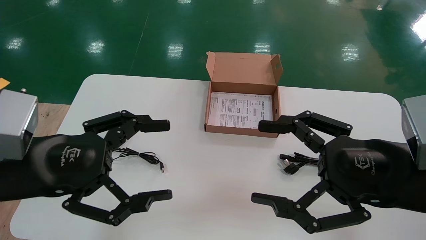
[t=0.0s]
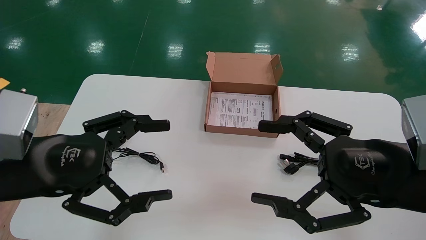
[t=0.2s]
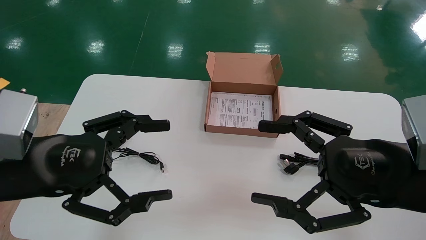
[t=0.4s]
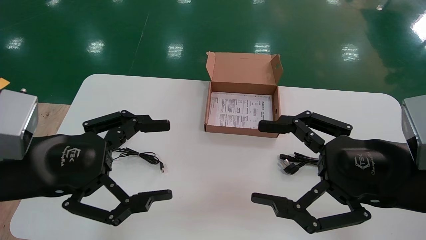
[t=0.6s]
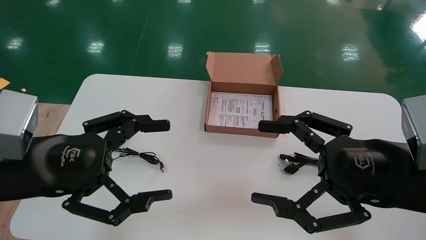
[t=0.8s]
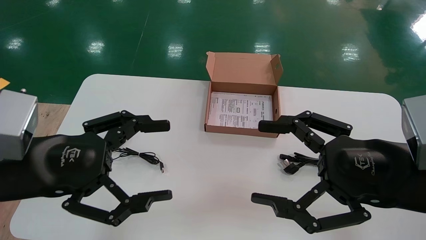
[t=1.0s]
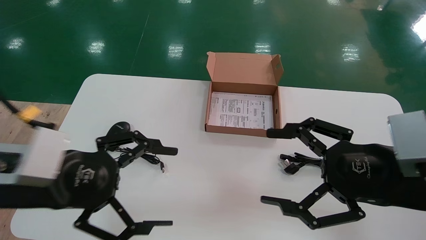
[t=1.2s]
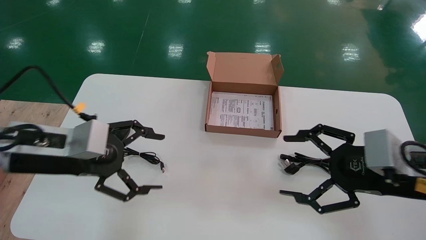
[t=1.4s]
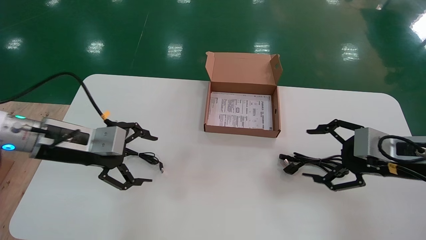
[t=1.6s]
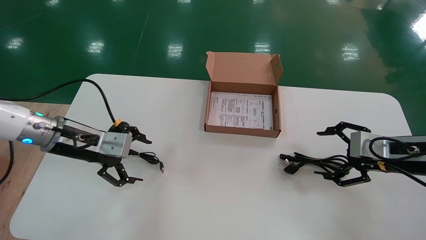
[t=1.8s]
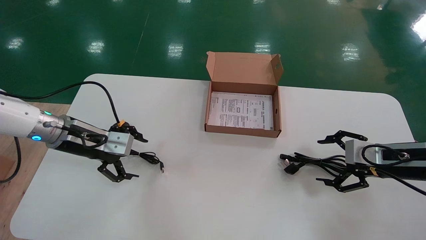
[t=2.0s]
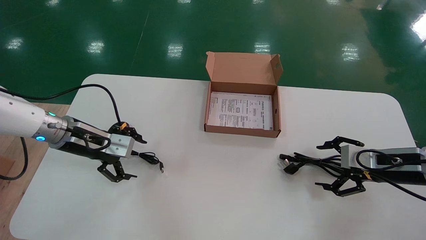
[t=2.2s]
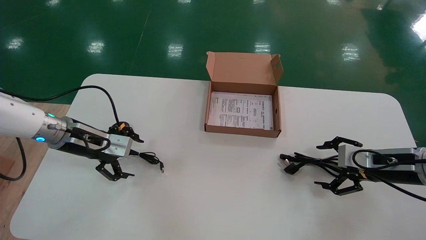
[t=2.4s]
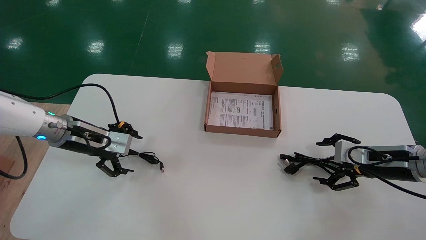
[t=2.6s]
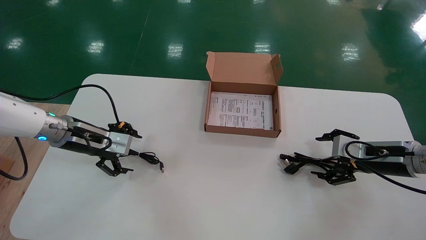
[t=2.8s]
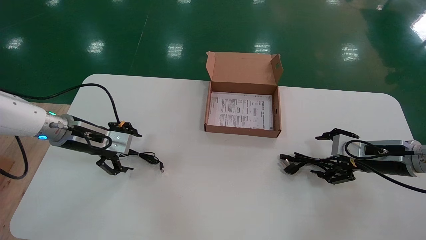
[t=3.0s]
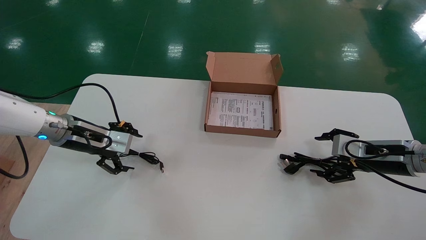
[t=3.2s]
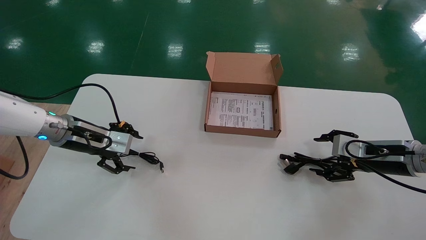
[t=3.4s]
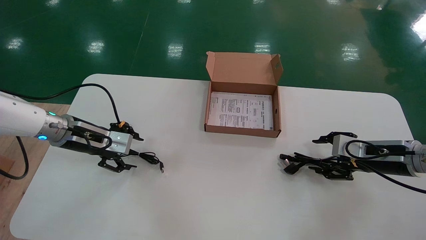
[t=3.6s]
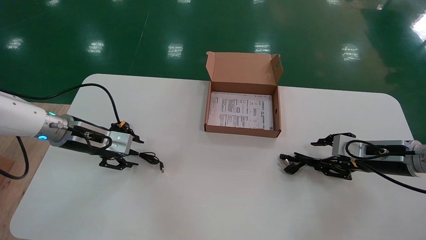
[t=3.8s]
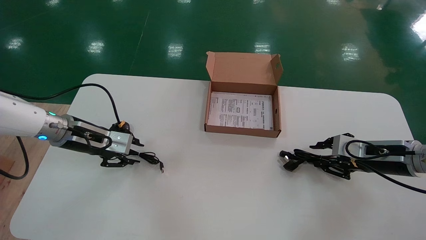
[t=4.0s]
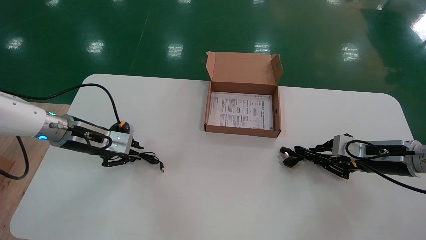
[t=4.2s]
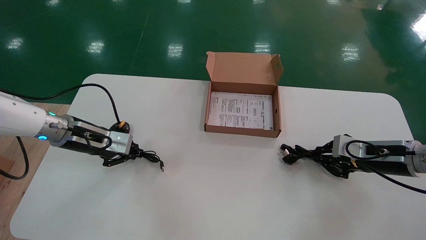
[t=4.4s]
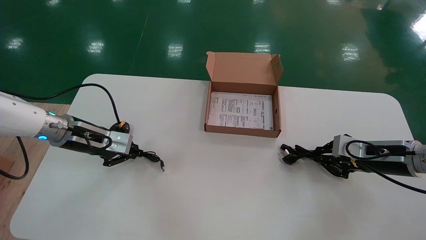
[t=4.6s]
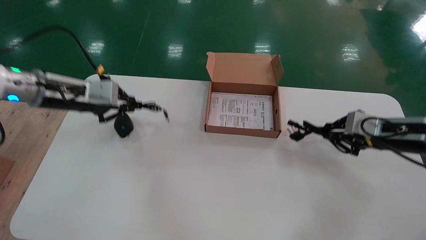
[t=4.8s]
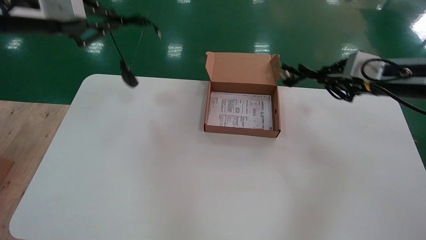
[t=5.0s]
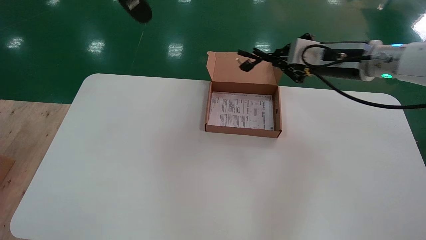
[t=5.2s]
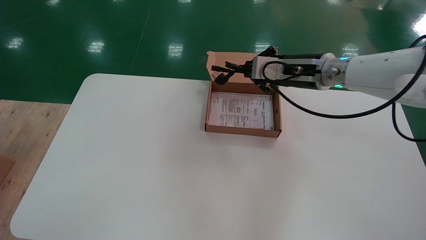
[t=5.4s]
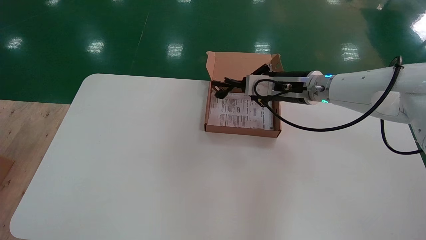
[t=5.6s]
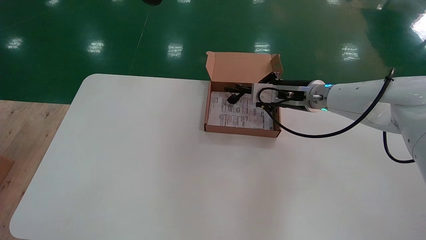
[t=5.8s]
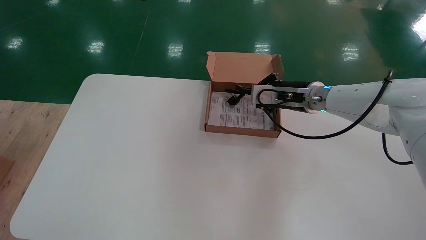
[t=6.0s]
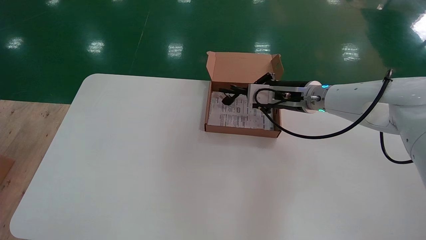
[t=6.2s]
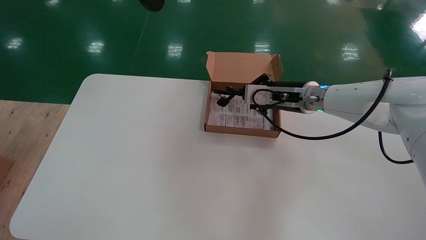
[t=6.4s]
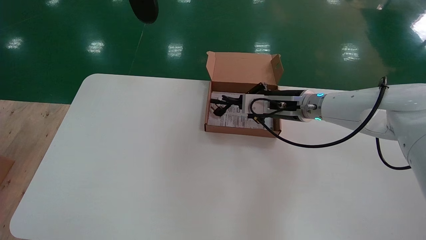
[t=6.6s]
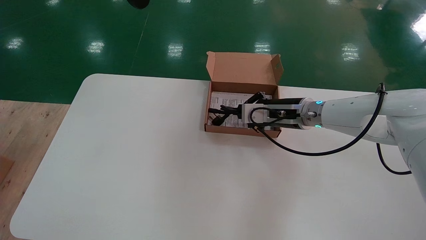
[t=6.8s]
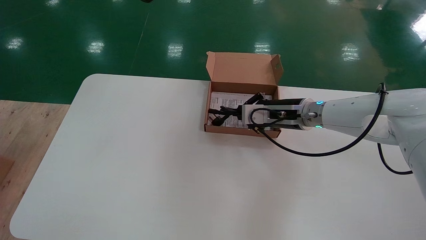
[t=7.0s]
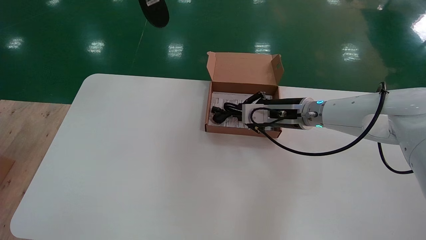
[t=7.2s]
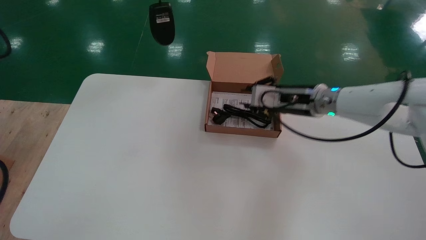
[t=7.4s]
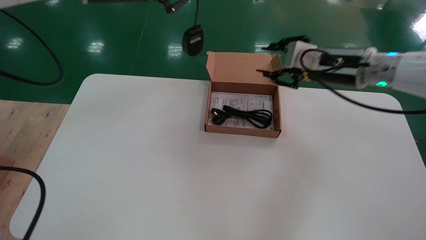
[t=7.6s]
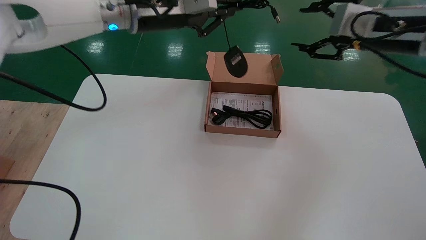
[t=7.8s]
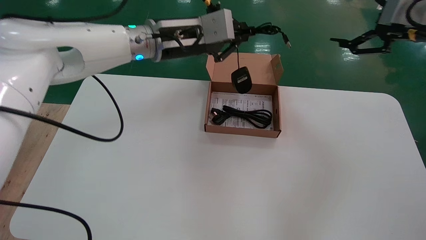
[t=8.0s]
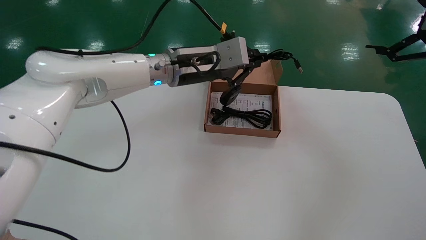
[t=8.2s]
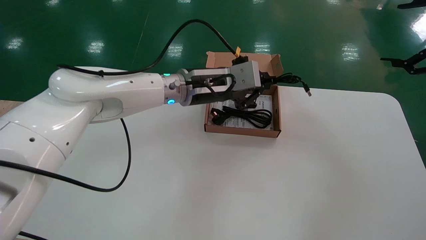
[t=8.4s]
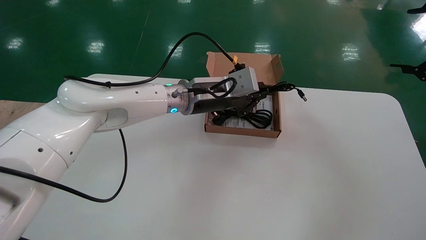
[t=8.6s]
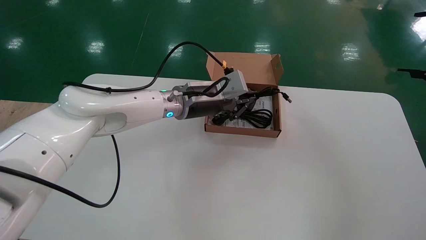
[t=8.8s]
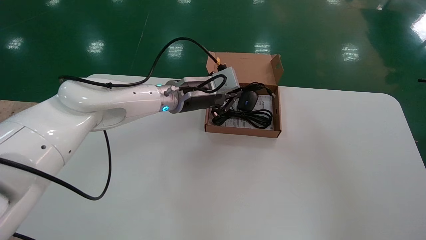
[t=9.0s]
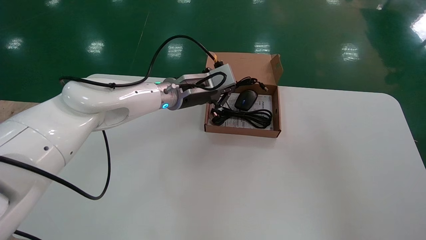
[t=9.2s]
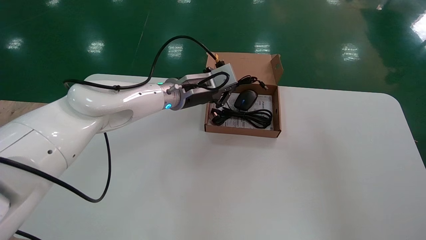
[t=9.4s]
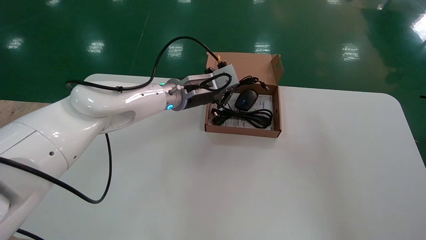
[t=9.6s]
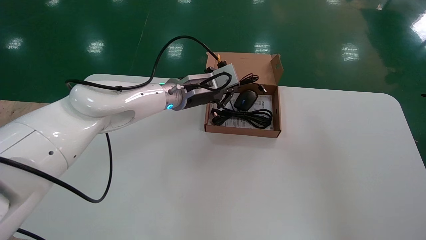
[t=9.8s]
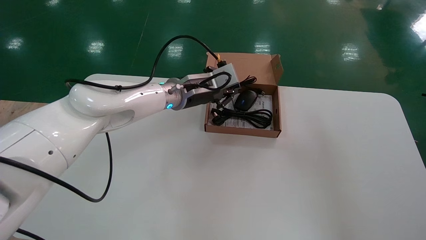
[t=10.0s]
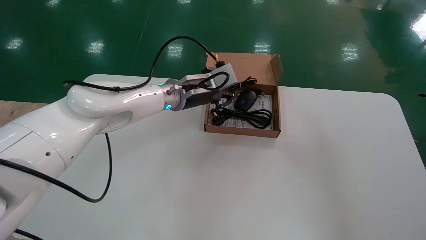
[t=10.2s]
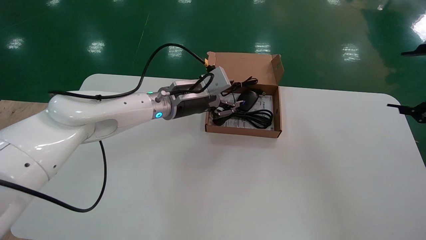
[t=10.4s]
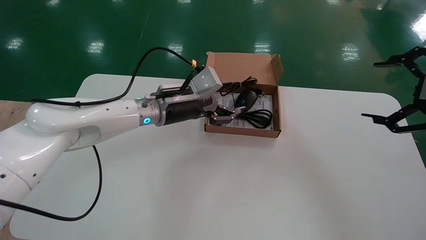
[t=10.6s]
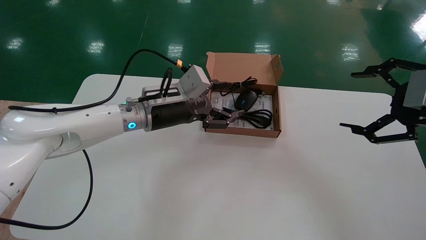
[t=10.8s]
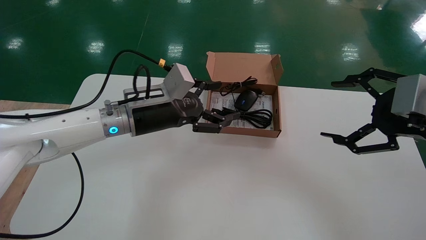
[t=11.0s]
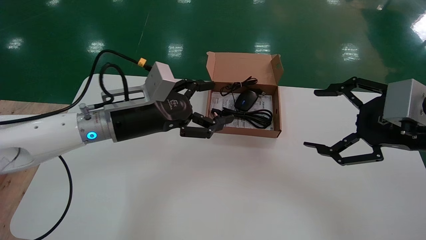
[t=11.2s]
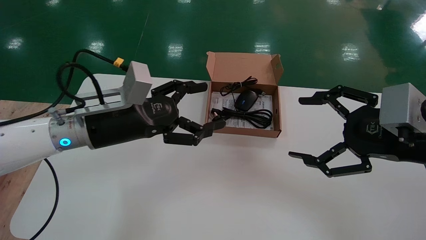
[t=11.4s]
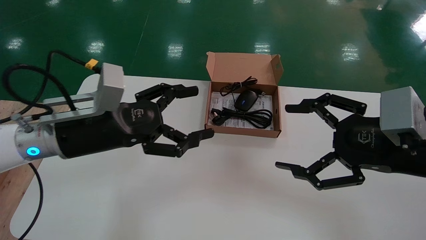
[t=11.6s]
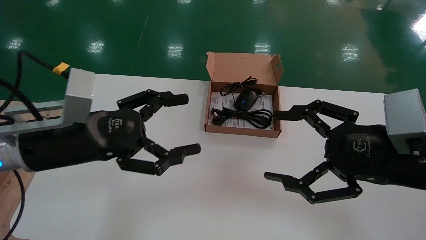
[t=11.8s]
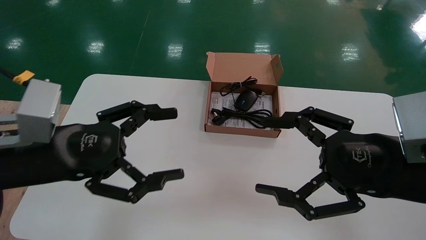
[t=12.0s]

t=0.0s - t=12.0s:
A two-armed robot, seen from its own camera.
Step, t=1.6s - t=4.8s: Simultaneously pick up the mouse and power cord from the accessory packaging area.
Step, t=5.0s - t=10.4s: Place the mouse and power cord into the box.
t=0.0s - t=1.6s: The right gripper shifts approximately 15 cm forward and to the right. The left gripper heads forward, covering some 15 cm.
t=1.6s - t=3.0s: The right gripper travels forward and downward by about 10 cm; the left gripper travels forward by some 10 cm.
t=3.0s - t=4.4s: The right gripper closes; the left gripper closes up.
t=4.4s - t=6.0s: The left gripper moves upward, some 35 cm. The right gripper goes about 25 cm to the left, forward and upward.
t=6.0s - t=7.6s: The left gripper moves to the right, downward and forward, roughly 15 cm. The right gripper heads upward, to the right and backward, covering about 10 cm.
t=7.6s - t=9.0s: The left gripper goes approximately 25 cm downward, to the right and forward, while the right gripper shifts approximately 25 cm to the right and backward, and opens up.
t=9.0s - t=10.4s: The right gripper ends up roughly 5 cm from where it was. Meanwhile the left gripper opens its fingers.
t=10.4s - t=12.0s: The left gripper goes approximately 30 cm backward and to the left, and opens its fingers, while the right gripper goes approximately 20 cm to the left and downward.

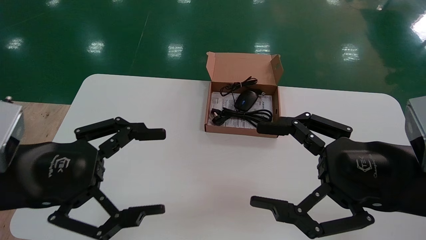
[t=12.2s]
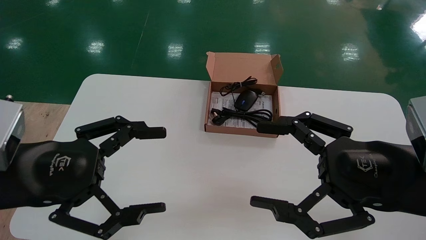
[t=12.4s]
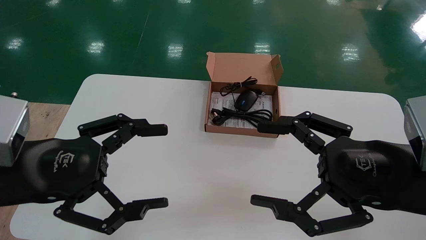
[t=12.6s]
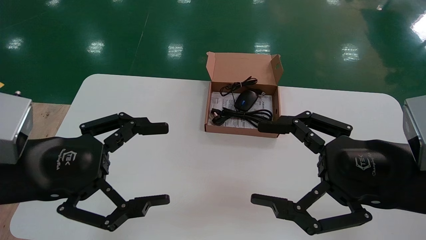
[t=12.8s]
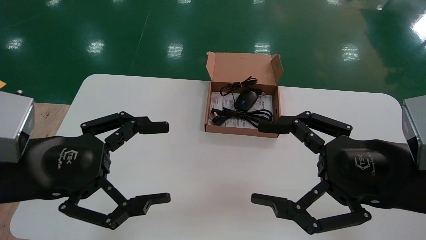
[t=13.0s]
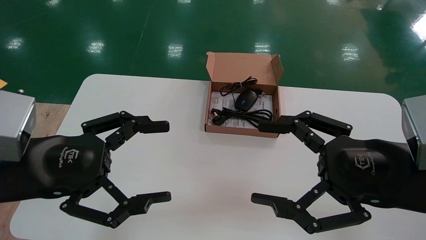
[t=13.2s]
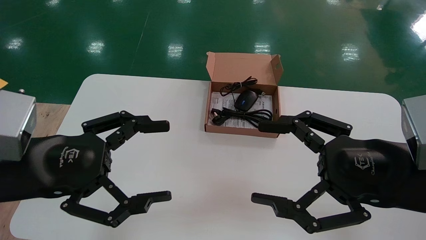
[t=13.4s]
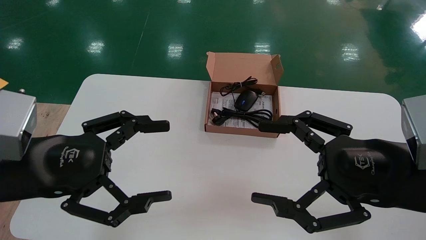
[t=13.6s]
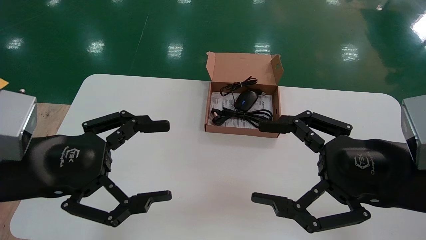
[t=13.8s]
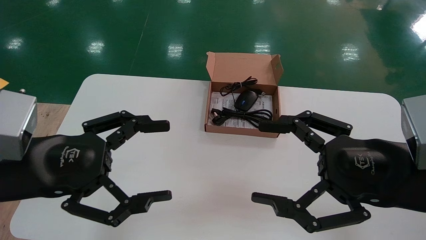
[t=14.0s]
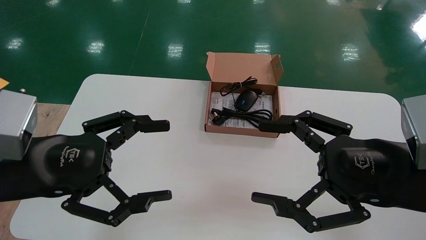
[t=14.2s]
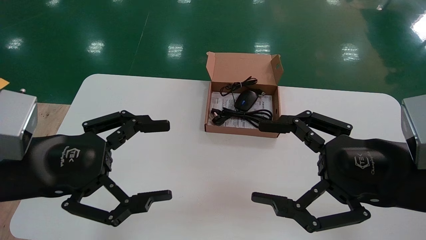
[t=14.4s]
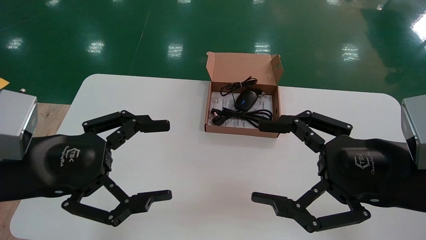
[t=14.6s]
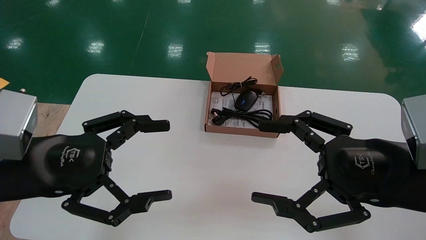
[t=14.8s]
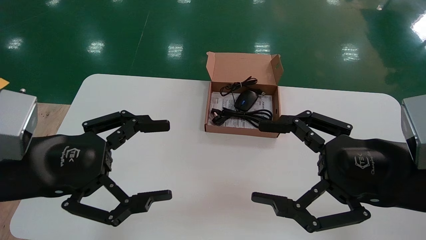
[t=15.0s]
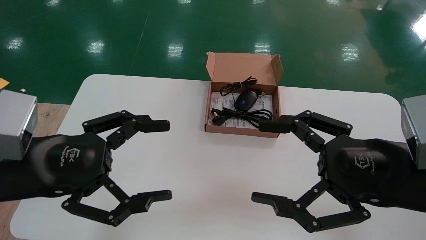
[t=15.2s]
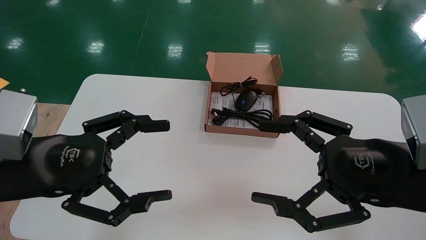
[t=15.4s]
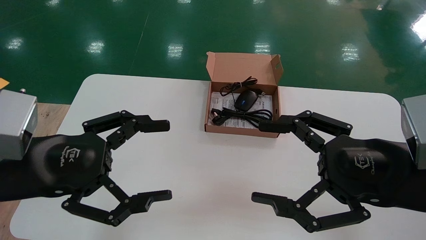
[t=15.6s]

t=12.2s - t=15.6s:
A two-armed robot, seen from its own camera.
t=12.2s - t=15.6s: Both grippers stay put.
